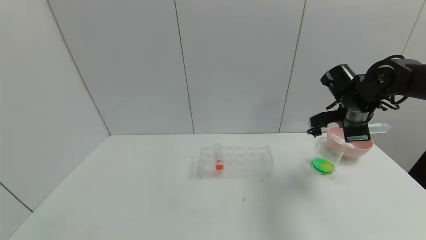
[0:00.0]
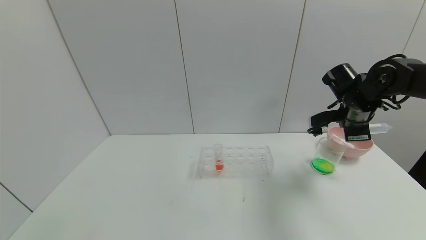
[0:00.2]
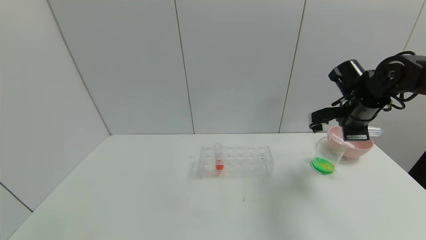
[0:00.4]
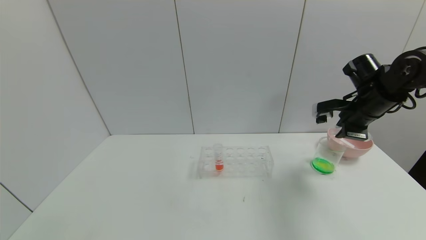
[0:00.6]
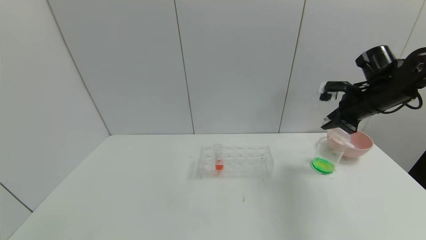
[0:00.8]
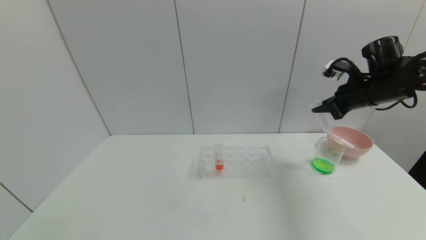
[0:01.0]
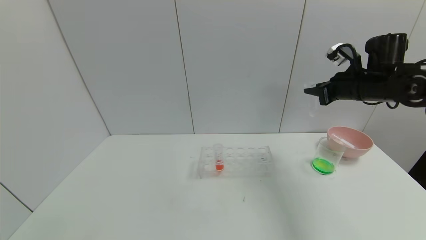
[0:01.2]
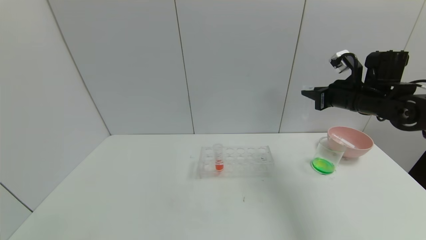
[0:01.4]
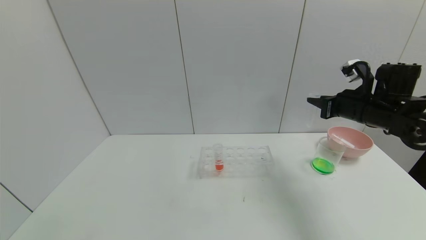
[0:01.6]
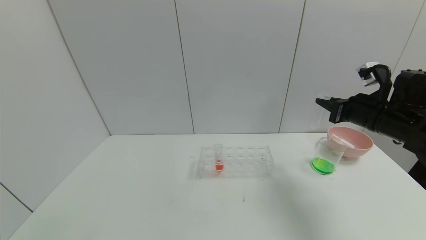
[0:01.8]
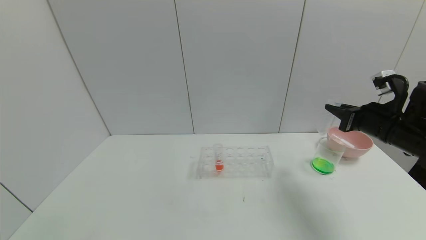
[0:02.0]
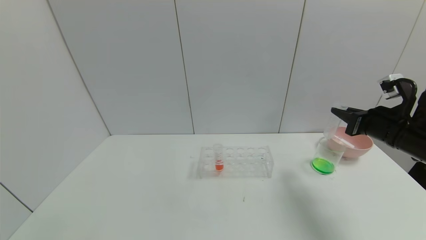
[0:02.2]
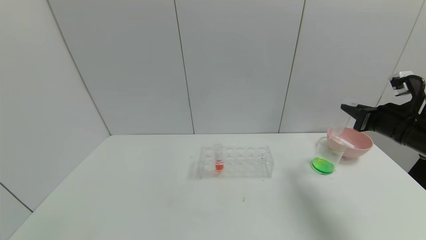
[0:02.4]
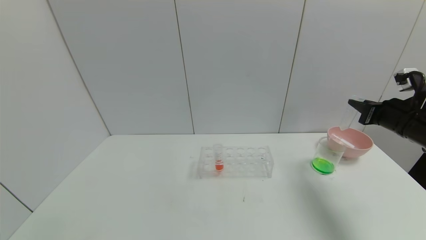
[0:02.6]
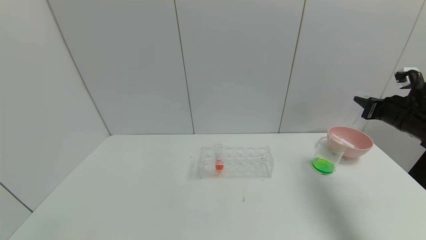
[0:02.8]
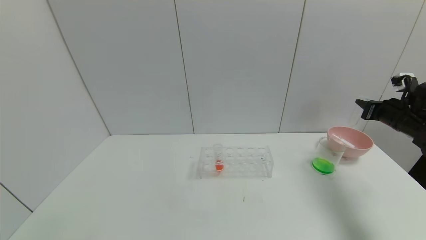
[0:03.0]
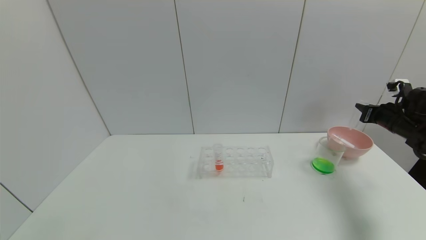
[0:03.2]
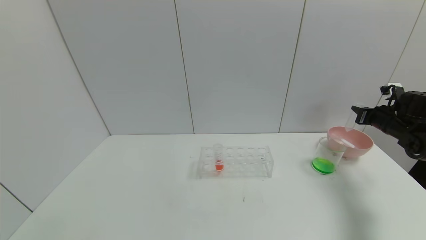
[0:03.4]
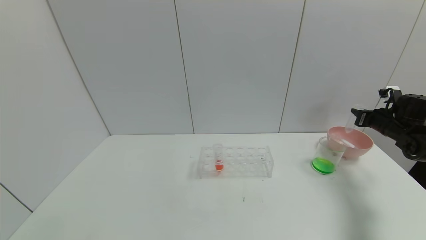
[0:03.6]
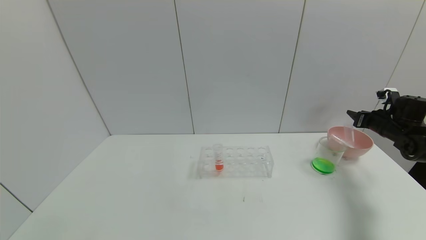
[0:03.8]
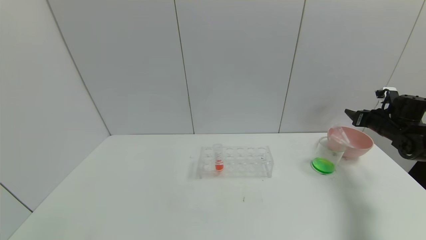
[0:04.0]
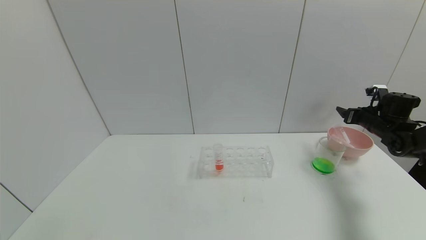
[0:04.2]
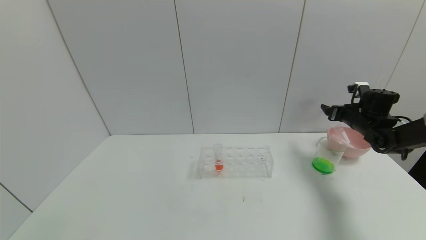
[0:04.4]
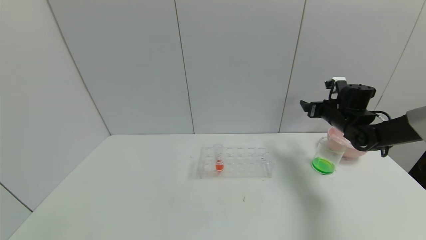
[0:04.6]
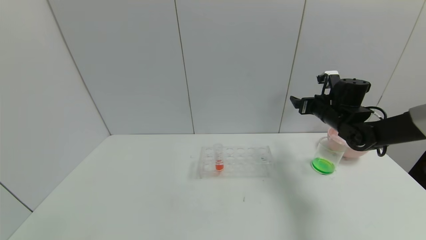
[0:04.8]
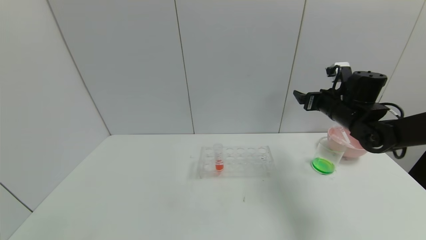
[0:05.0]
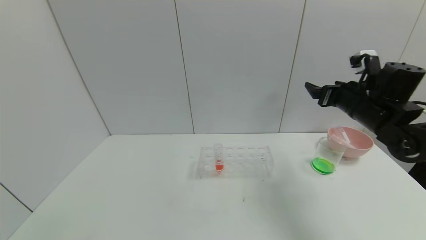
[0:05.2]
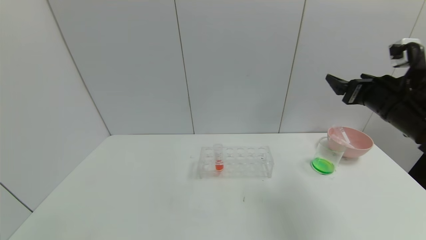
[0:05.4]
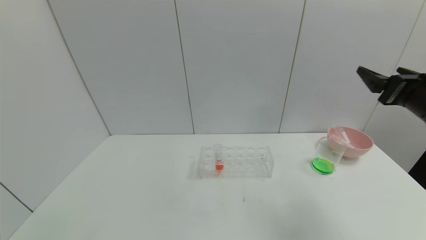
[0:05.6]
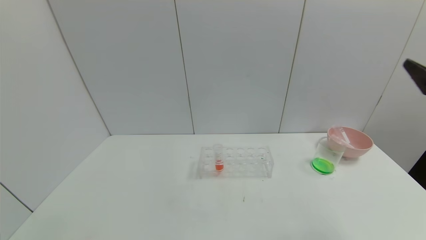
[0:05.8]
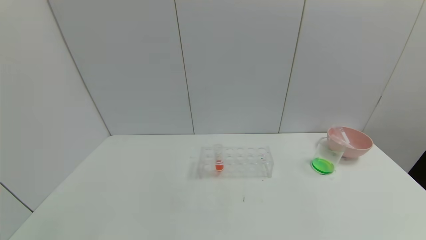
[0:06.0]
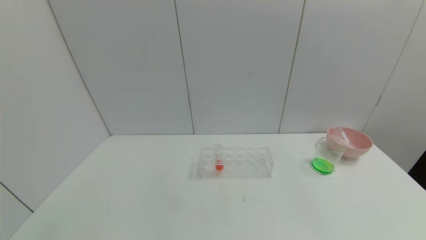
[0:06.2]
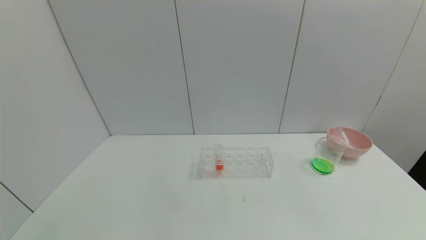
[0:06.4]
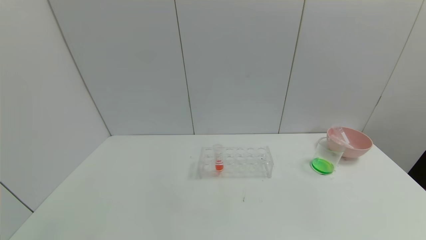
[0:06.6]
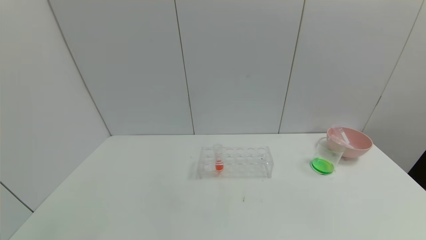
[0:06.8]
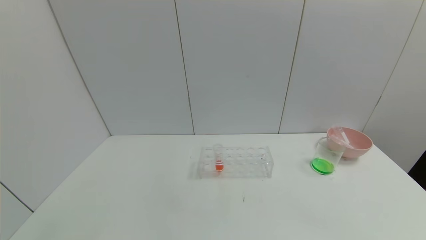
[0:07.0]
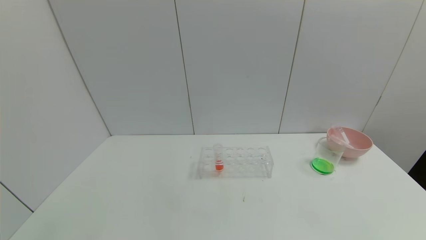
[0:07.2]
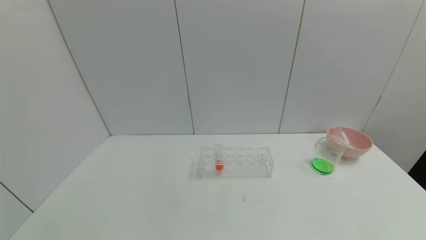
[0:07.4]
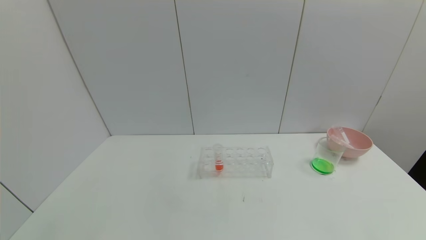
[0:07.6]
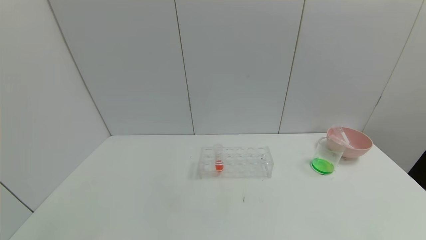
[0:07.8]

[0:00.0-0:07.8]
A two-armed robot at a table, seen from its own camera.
Task of the whole recording: pick up the test tube with yellow pigment and the test tube with blue pigment by grippers and pour them into the beaker.
Step, 0:00.2 to 0:04.2: Place the test tube into the bowl with the right gripper.
0:01.6 to 0:03.2: The right gripper goes approximately 15 cm to the right.
0:03.2 to 0:04.6: The right gripper shifts some 15 cm to the left and forward, and opens.
0:04.6 to 0:06.2: The right gripper shifts about 40 cm backward.

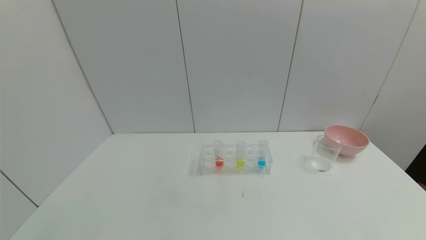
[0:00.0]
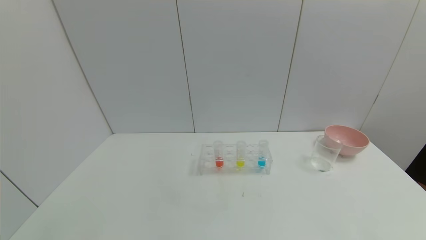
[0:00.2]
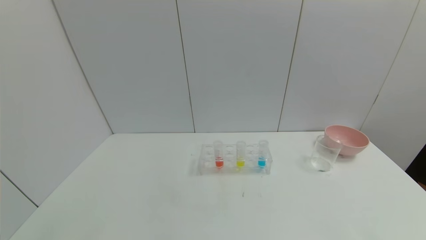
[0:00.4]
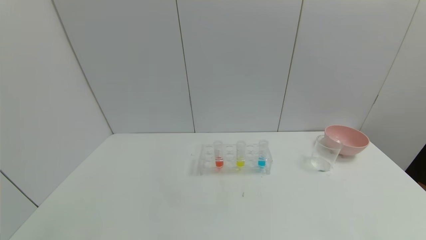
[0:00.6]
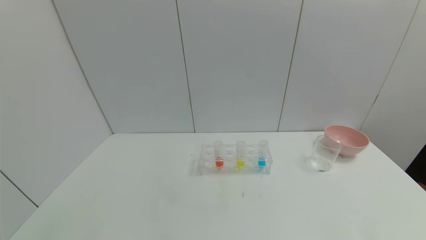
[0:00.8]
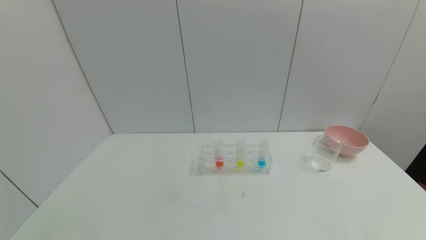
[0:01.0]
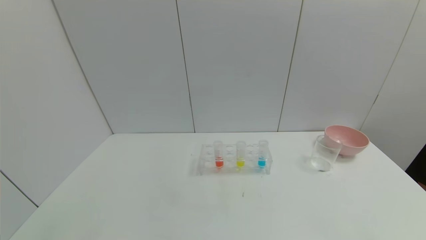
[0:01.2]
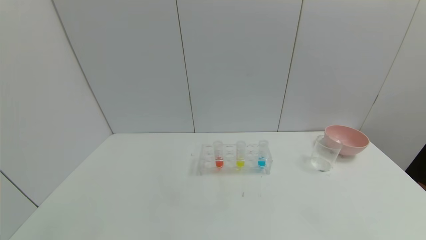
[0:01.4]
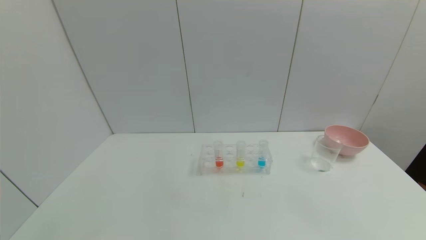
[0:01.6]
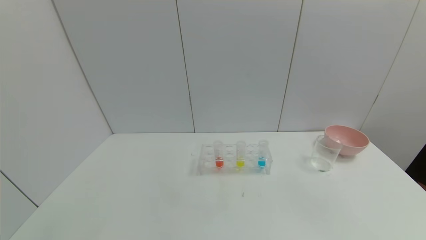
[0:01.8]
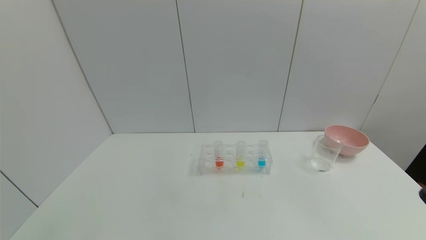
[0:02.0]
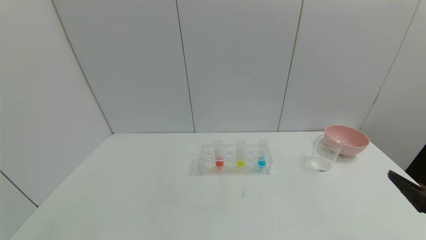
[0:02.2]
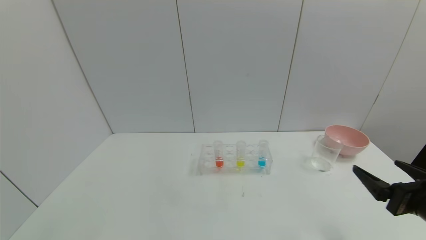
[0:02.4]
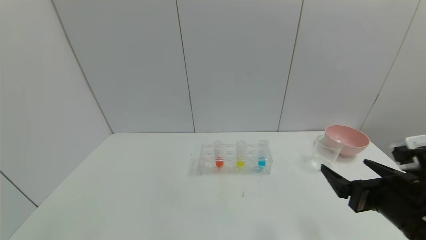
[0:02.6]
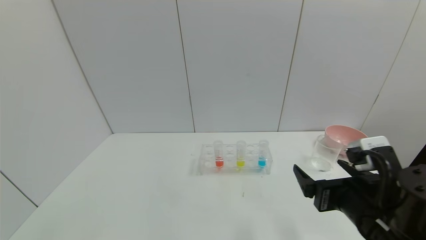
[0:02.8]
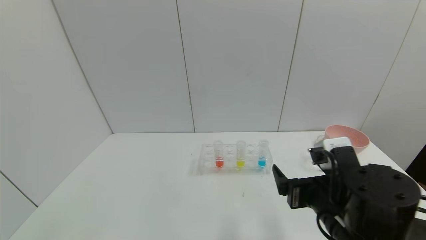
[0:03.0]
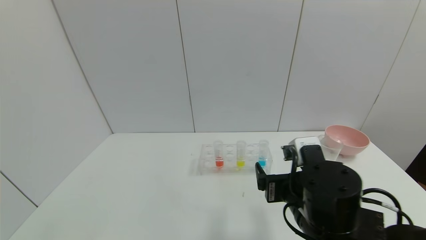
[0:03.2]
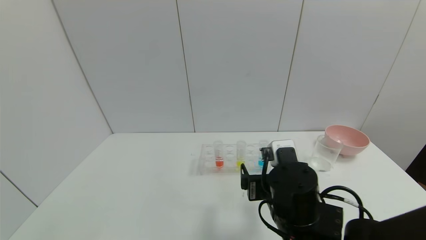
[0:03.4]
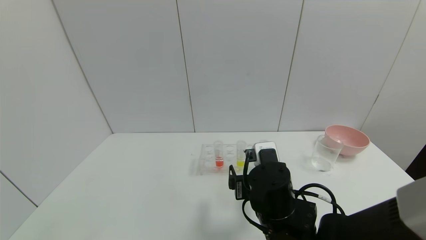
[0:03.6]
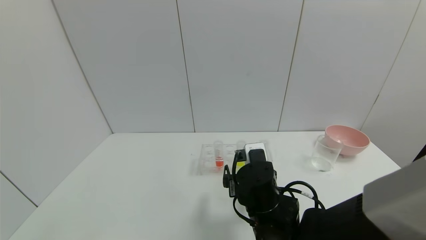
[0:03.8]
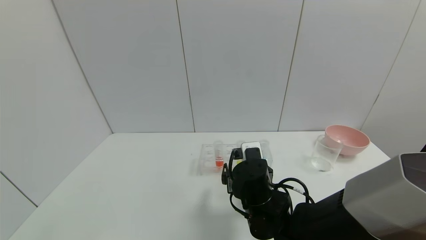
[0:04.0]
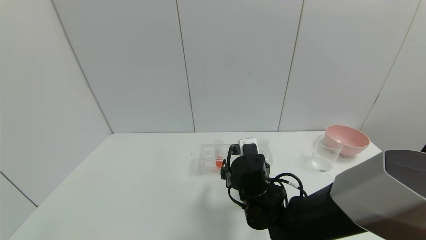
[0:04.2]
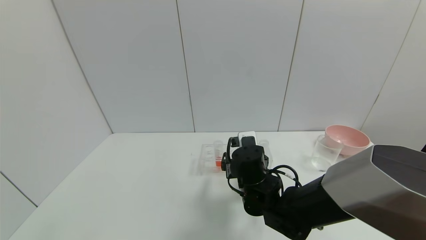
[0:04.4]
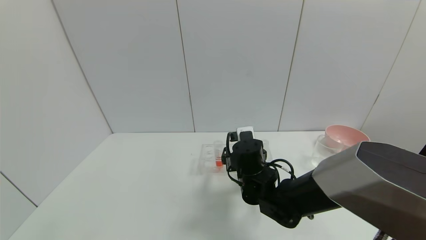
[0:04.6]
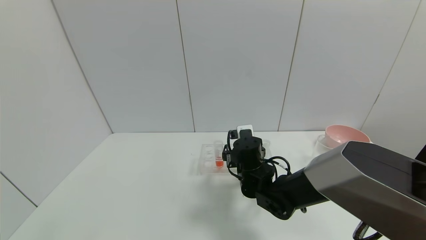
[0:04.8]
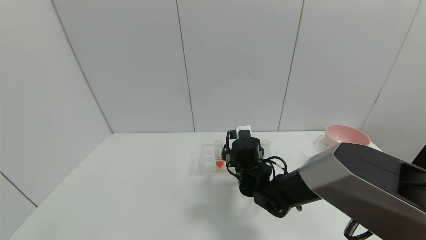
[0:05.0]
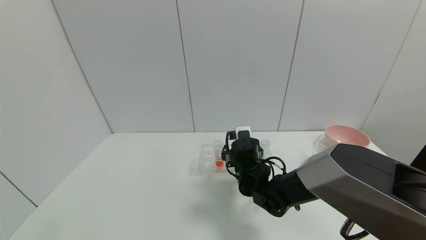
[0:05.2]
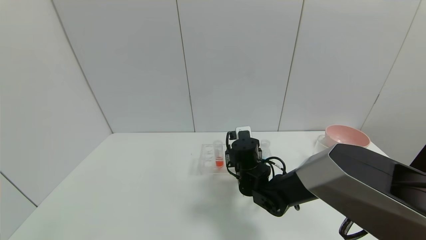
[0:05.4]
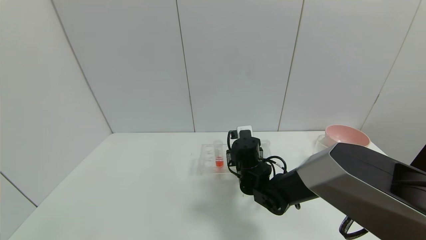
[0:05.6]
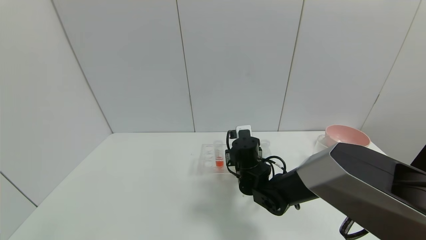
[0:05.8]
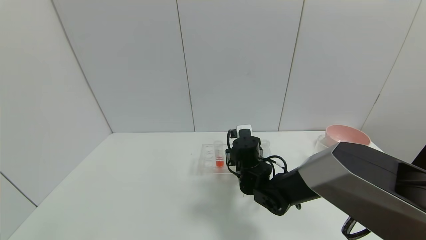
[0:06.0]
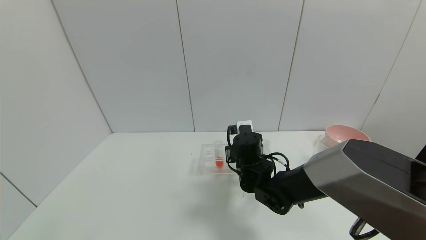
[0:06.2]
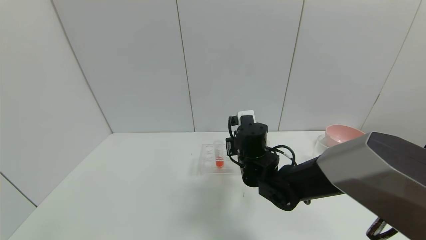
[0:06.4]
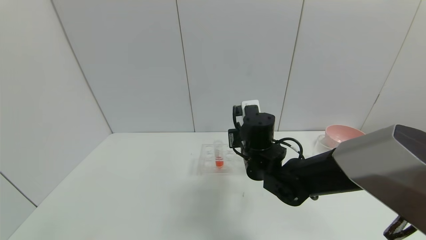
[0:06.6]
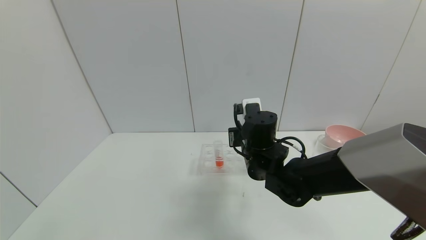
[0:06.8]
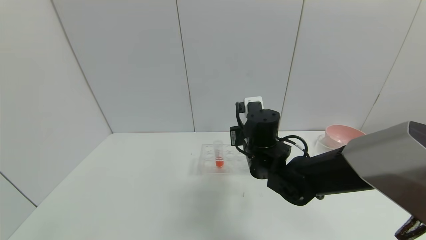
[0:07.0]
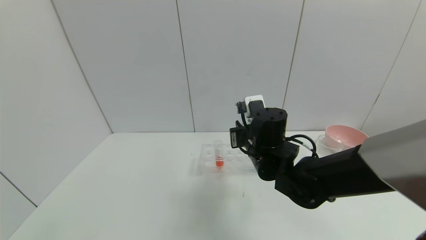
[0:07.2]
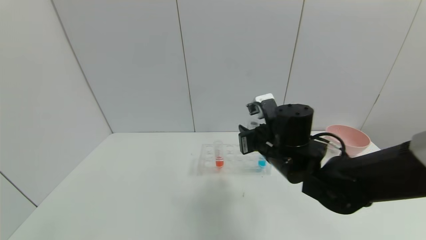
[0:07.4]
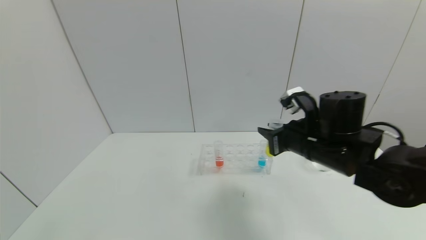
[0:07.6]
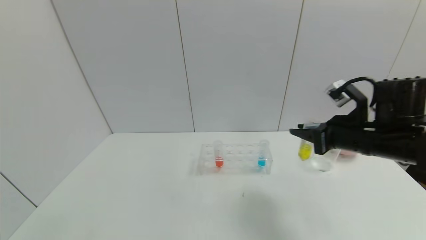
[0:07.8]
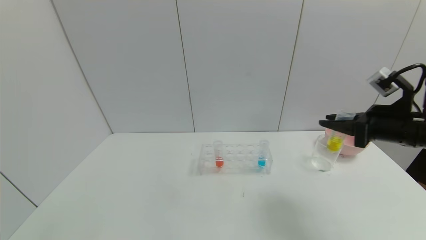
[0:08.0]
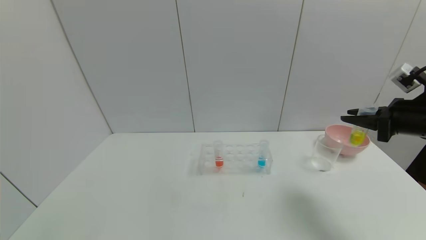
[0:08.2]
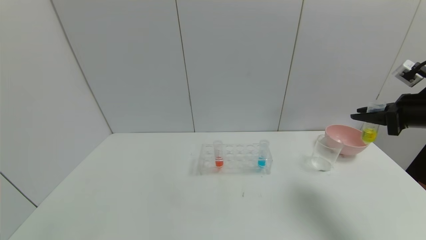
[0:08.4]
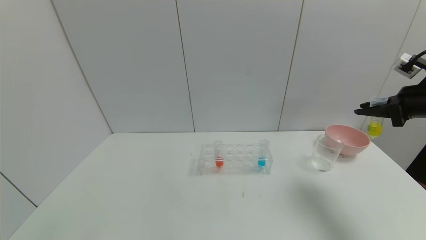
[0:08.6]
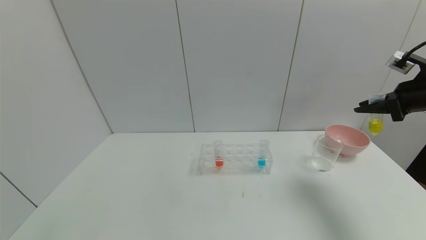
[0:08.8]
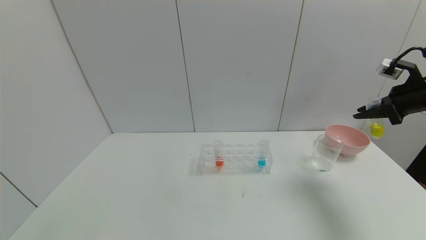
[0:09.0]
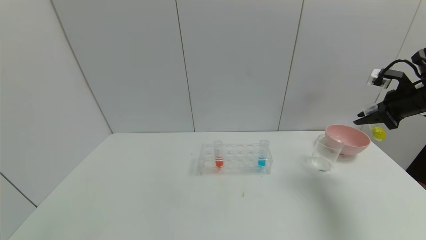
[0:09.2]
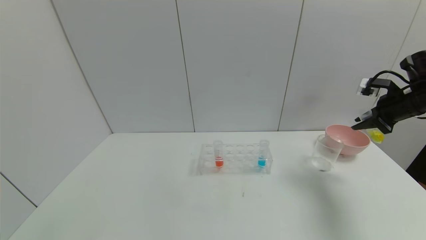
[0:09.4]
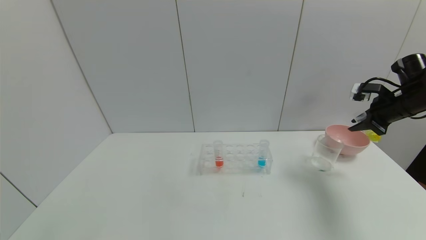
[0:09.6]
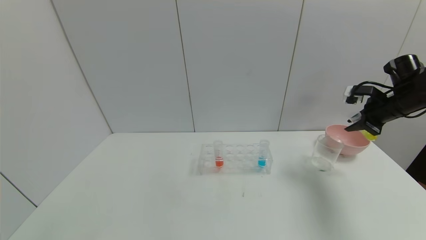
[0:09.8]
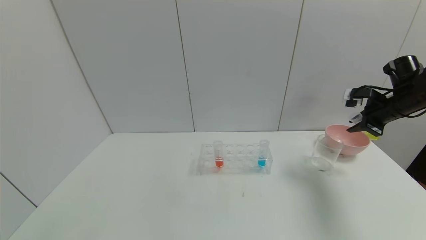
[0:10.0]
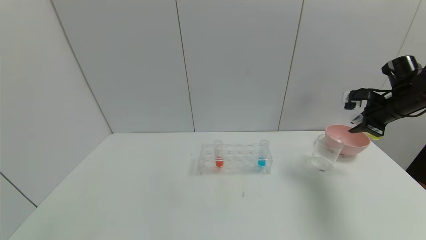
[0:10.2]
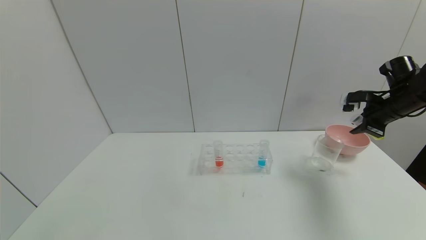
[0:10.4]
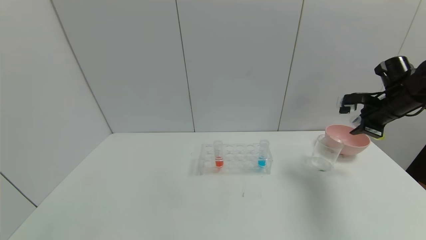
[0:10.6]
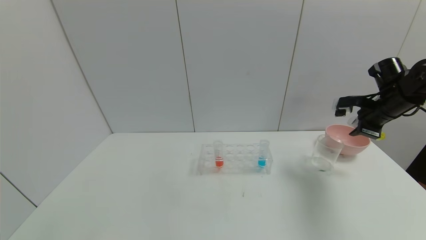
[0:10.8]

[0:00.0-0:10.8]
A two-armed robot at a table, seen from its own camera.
Task of the whole recording: pick up the test tube with yellow pigment and the test tube with blue pigment by grippers and pour them into the beaker.
Step, 0:00.0 to 0:06.0: Grasp the yellow reagent with the right gripper.
0:01.6 to 0:03.0: The right gripper shifts about 30 cm to the left and forward.
0:03.0 to 0:04.6: The right gripper travels forward, to the left and downward by some 20 cm.
0:04.6 to 0:06.2: The right gripper closes its fingers.
0:06.2 to 0:07.8: The right gripper moves to the right and upward, roughly 25 cm.
0:07.8 to 0:09.2: The right gripper heads to the right and forward, covering about 20 cm.
0:09.2 to 0:10.8: The right gripper moves approximately 5 cm.
